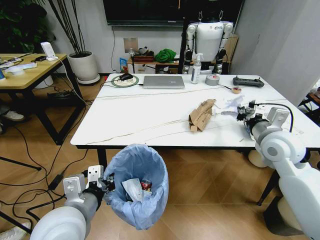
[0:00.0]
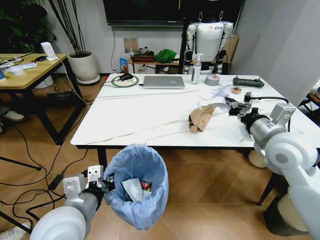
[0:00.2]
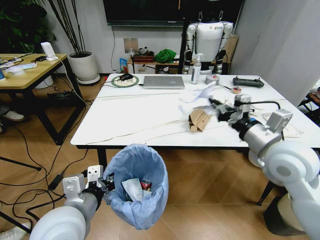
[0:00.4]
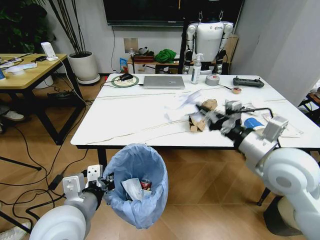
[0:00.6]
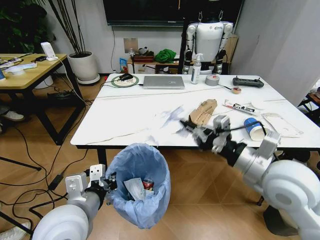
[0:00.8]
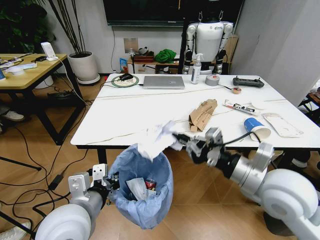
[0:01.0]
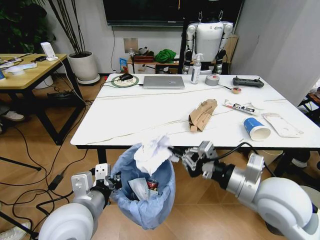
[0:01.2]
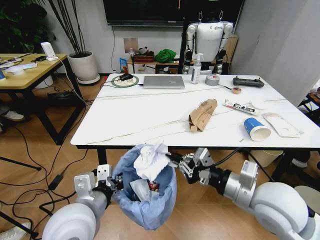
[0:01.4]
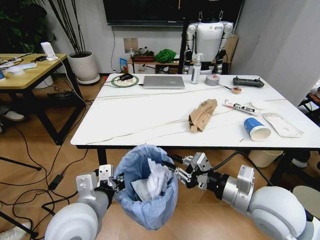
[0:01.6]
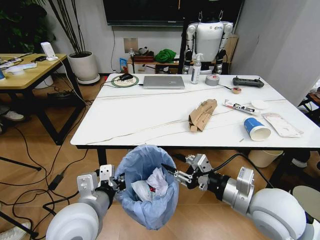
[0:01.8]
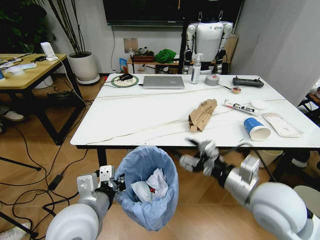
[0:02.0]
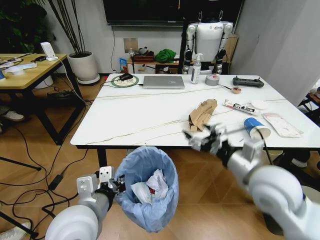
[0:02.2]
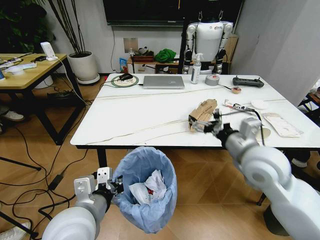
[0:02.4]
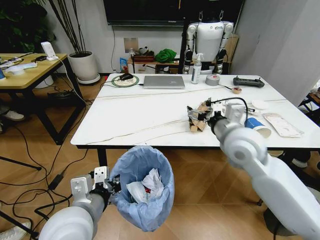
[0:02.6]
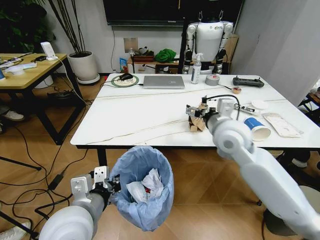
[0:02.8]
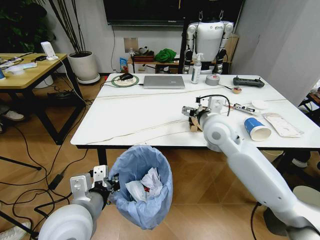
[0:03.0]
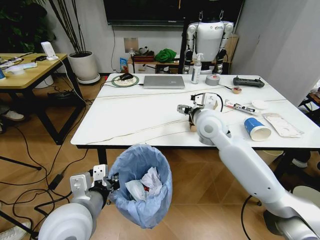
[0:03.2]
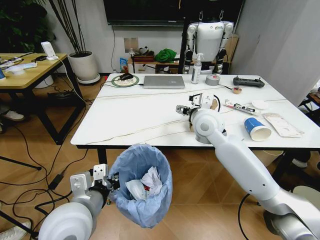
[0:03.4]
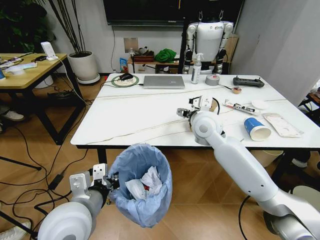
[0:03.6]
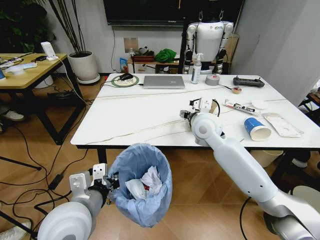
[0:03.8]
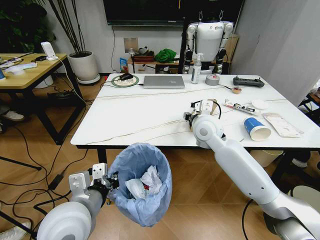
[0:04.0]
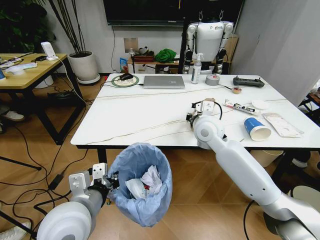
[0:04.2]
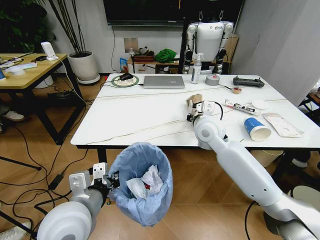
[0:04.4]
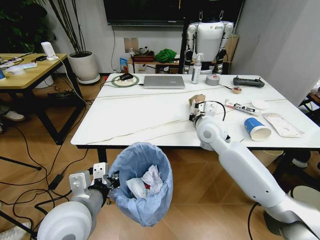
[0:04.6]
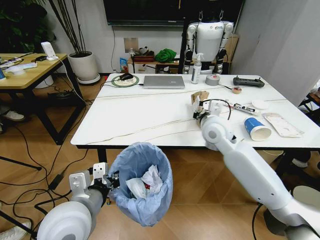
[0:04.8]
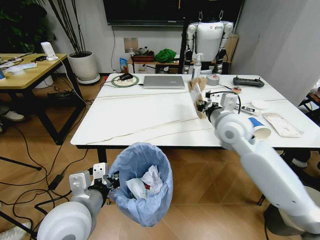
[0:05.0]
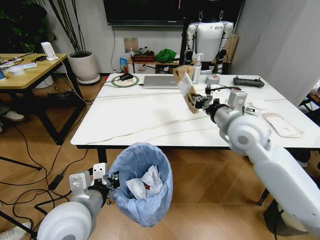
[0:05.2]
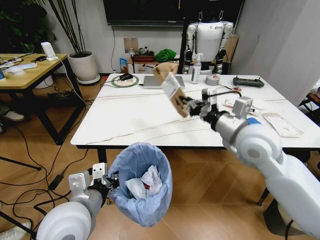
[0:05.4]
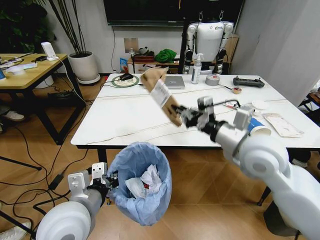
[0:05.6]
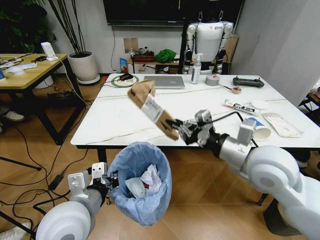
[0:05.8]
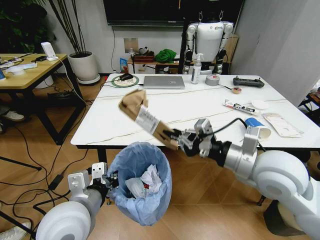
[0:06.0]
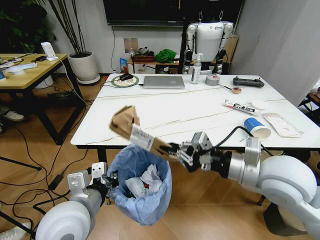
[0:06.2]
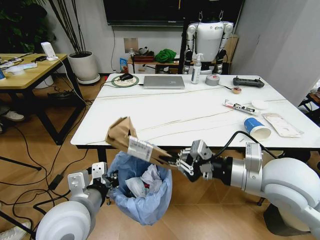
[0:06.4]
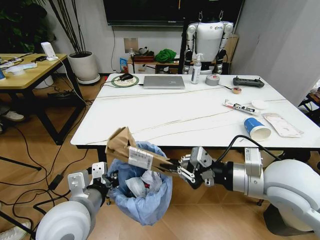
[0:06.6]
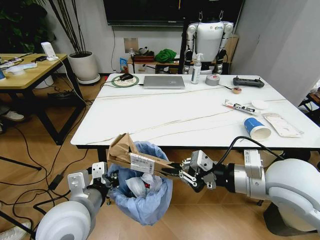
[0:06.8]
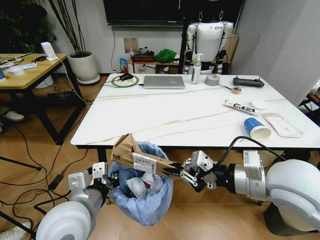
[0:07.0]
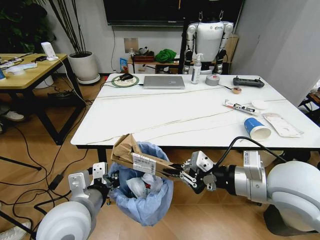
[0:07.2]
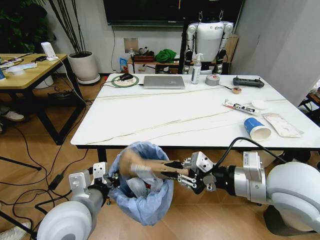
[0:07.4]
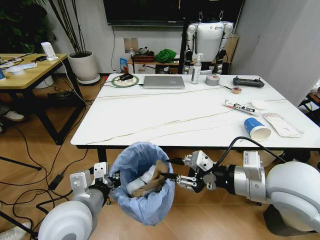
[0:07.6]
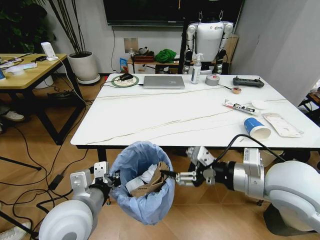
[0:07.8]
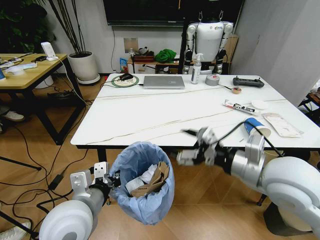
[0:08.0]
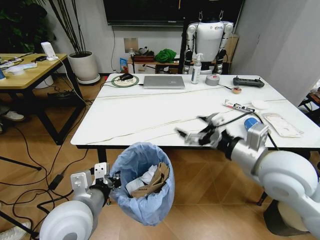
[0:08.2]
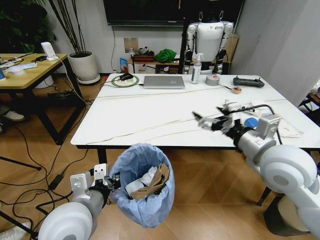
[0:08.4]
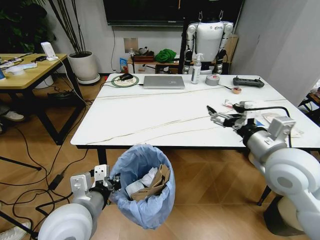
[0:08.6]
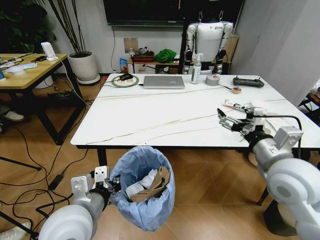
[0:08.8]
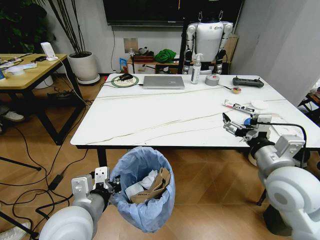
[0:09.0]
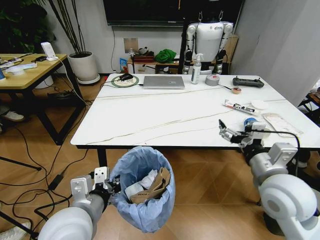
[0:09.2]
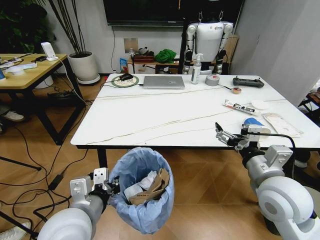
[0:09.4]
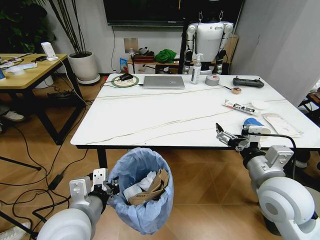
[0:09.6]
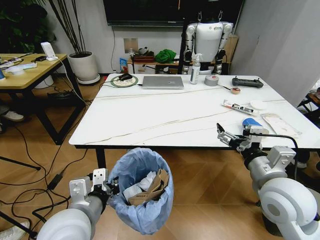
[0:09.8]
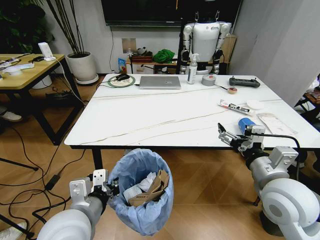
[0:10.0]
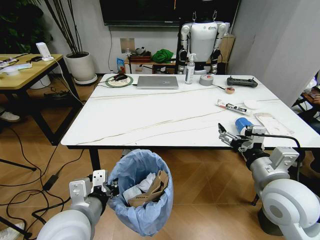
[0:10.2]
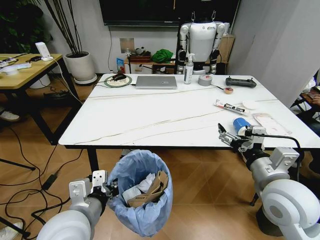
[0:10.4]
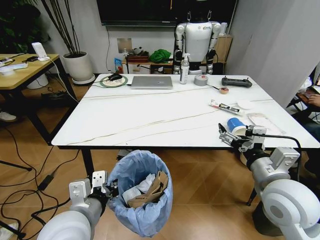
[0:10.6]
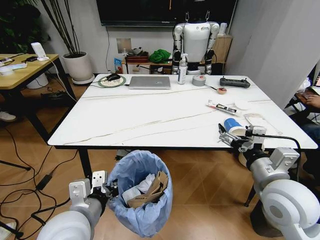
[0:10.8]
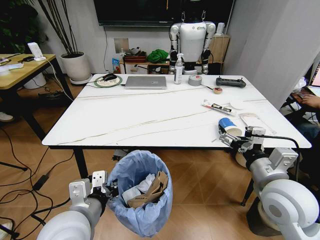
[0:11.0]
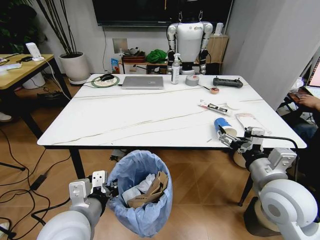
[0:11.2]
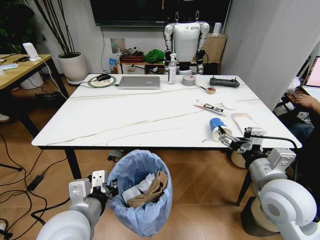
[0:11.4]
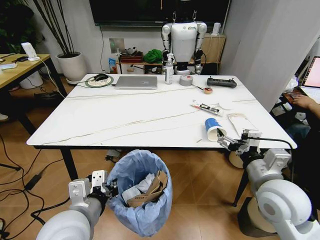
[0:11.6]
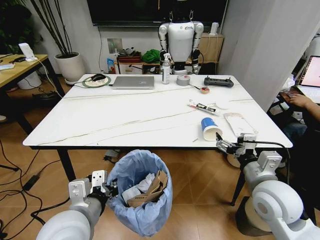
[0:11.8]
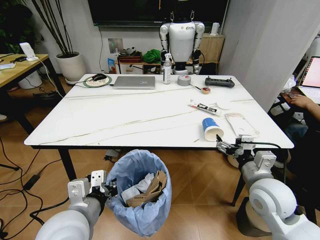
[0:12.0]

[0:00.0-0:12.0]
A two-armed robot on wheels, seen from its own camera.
Task of the whole recording: Pick up the trash bin and place the trash from the table into it.
0:00.0 to 0:01.6: The right gripper is displaced backward and to the left by some 20 cm.
0:01.6 to 0:03.0: The right gripper shifts about 20 cm forward and to the left, and opens its fingers.
0:03.0 to 0:04.4: The right gripper closes its fingers.
0:04.4 to 0:06.0: The right gripper goes some 20 cm backward and to the right.
0:06.0 to 0:07.6: The right gripper opens up.
0:07.6 to 0:09.0: The right gripper shifts by some 5 cm, and opens up.
0:10.4 to 0:12.0: The right gripper goes roughly 5 cm downward.

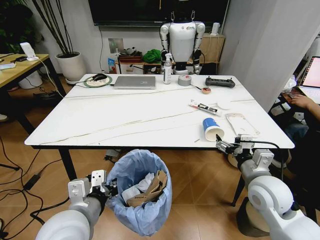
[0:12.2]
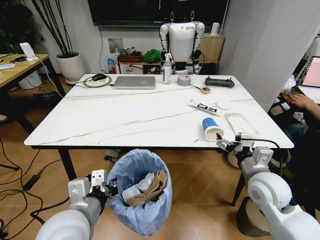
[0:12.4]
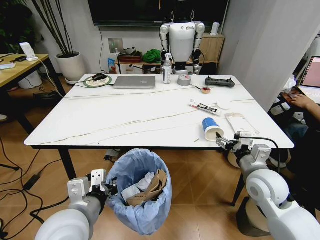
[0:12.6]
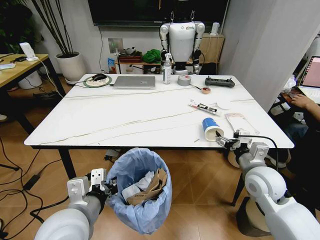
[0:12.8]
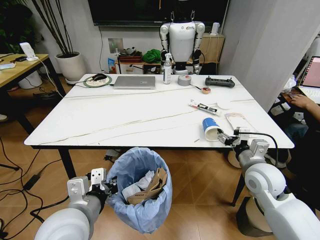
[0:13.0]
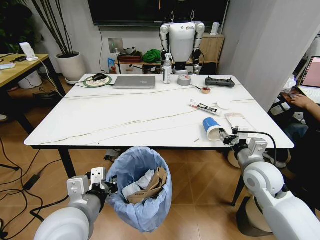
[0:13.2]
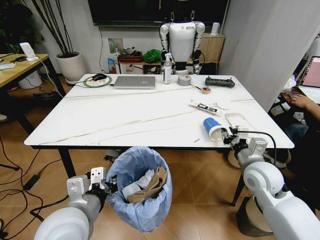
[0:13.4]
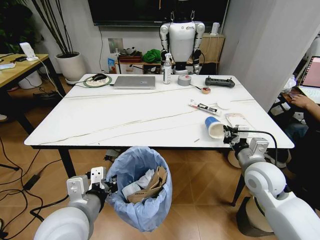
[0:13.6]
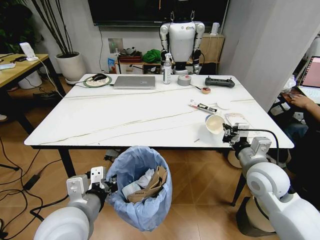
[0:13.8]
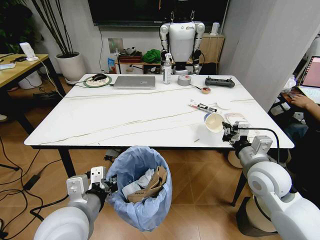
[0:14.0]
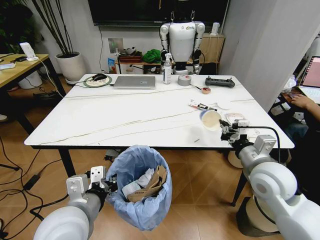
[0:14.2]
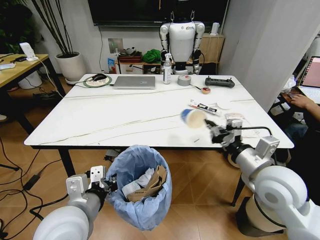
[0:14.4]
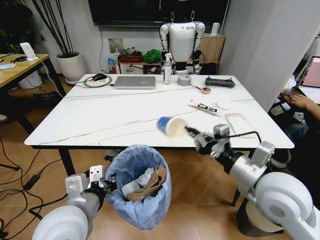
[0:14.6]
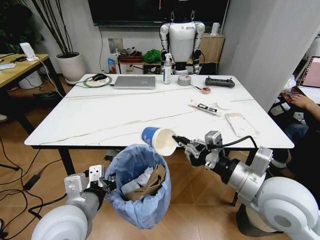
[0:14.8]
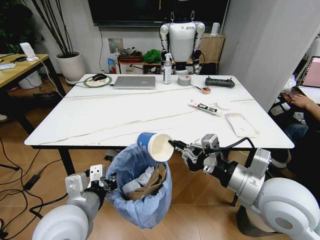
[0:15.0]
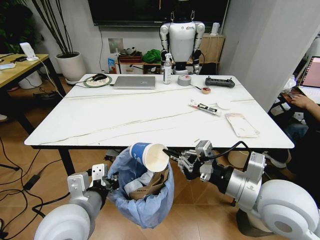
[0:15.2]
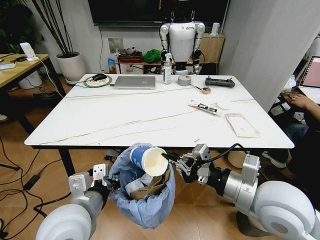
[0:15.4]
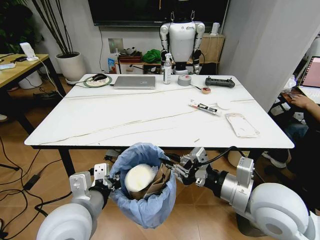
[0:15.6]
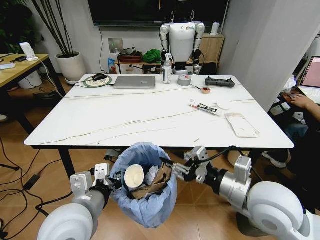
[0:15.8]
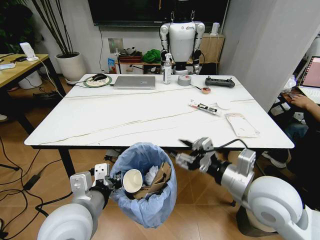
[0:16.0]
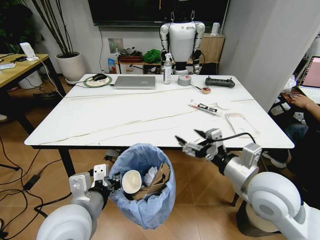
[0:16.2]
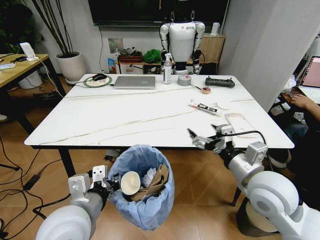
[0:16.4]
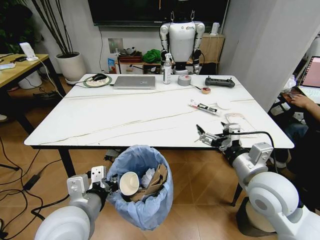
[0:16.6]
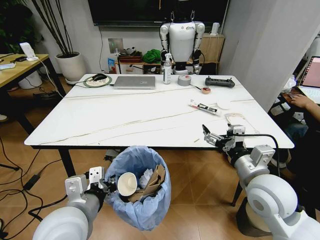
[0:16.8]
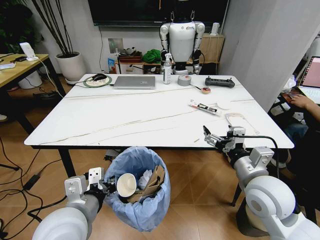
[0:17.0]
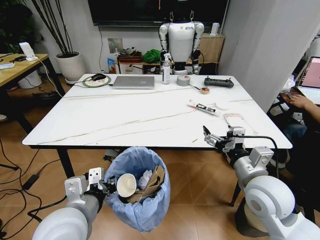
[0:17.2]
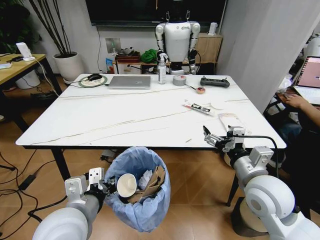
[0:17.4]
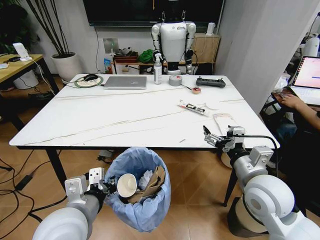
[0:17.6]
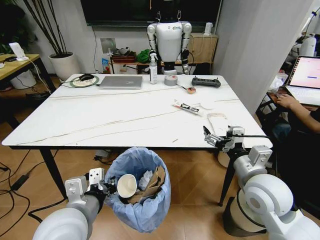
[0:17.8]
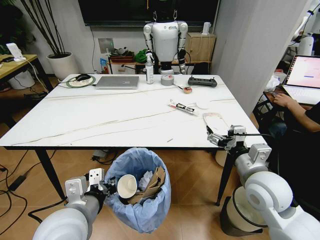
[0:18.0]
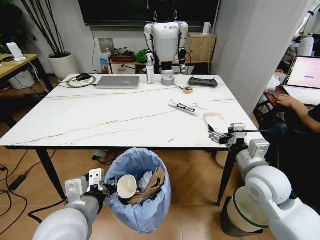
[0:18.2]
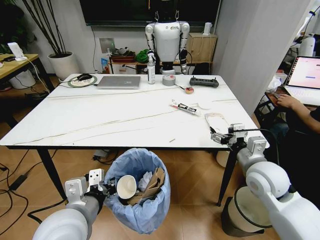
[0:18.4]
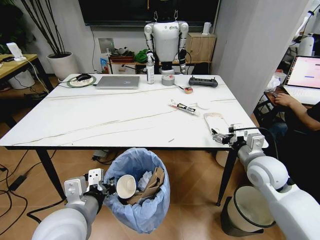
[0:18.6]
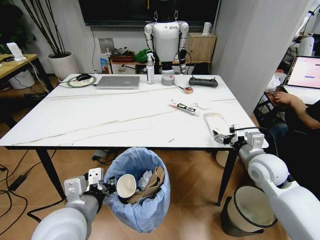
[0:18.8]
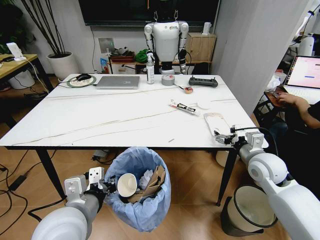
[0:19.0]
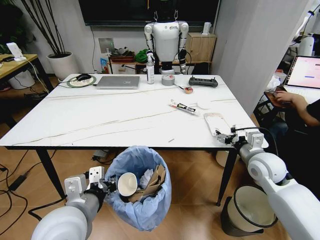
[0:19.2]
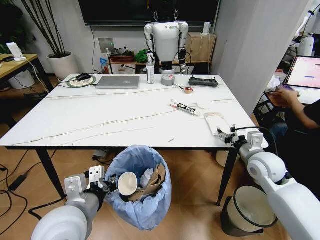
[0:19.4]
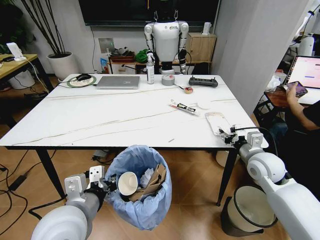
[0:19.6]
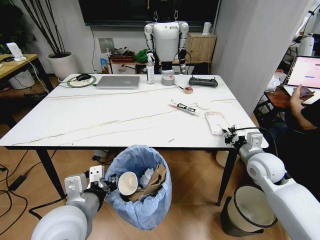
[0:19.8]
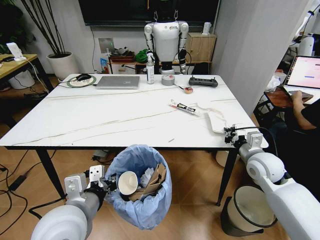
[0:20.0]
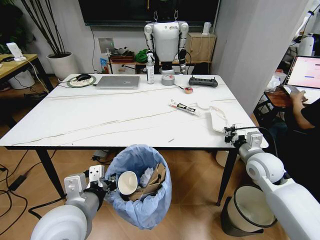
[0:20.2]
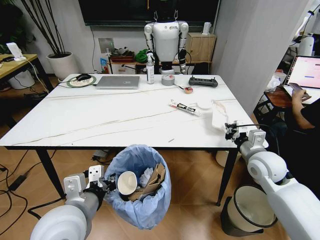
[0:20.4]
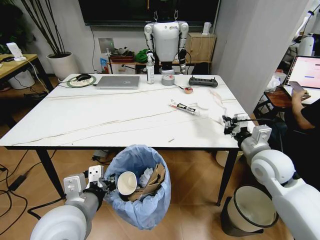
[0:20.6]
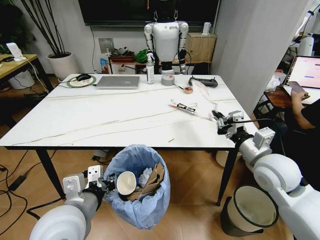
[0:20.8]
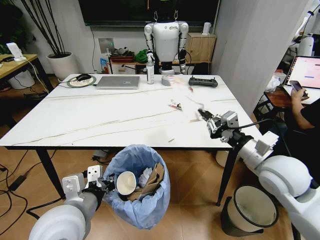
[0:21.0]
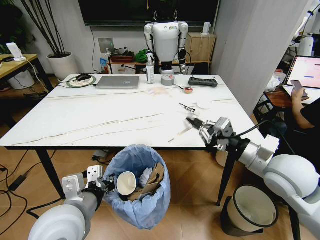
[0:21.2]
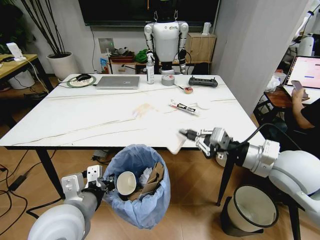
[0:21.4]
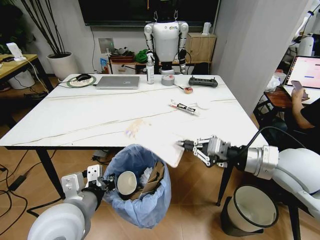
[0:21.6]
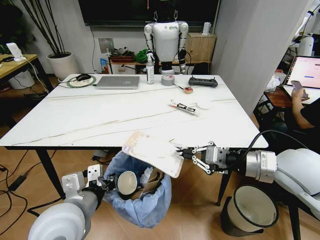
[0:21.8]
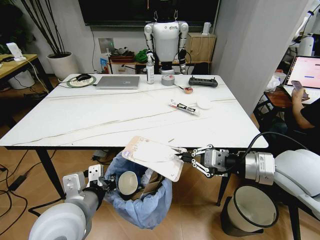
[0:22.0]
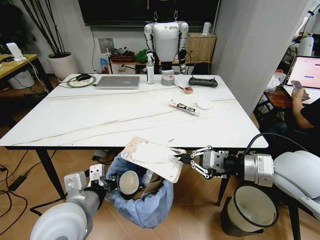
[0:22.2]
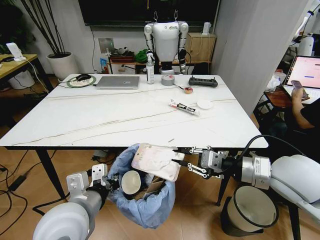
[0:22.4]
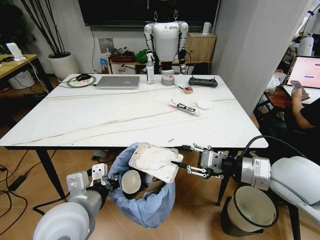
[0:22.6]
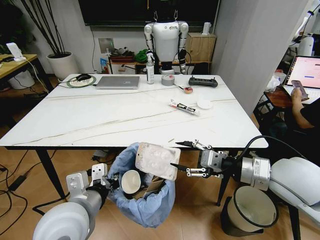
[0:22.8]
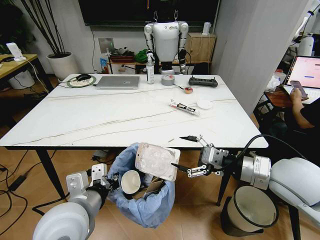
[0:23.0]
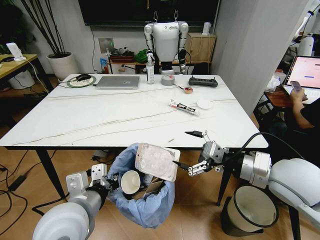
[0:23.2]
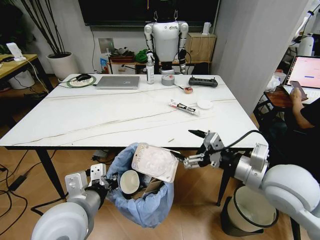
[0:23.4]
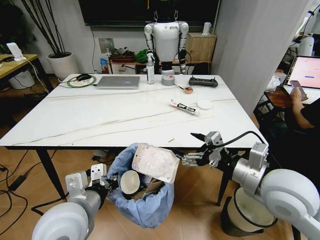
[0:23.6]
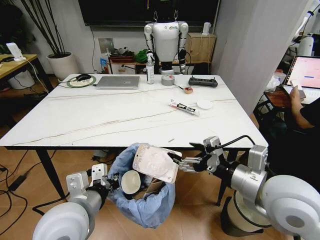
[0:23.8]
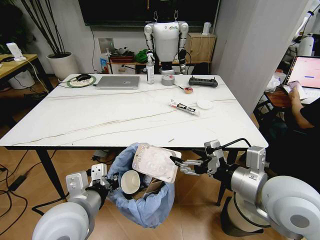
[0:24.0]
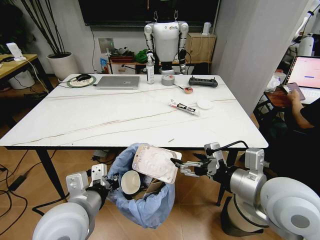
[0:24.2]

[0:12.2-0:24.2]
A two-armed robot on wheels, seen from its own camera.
Task of the whole recording: Pick up the trash bin and place the trash from the table into it.
0:12.2 to 0:13.8: The right gripper closes its fingers.
0:13.8 to 0:15.2: The right gripper goes roughly 15 cm backward, upward and to the left.
0:15.2 to 0:16.6: The right gripper changes place by about 5 cm, and opens.
0:18.2 to 0:19.8: The right gripper travels forward and to the right by roughly 10 cm, and closes.
0:19.8 to 0:21.2: The right gripper shifts about 15 cm upward and backward.
0:21.2 to 0:22.6: The right gripper opens.
0:22.6 to 0:24.2: The right gripper is displaced backward by roughly 5 cm, and opens.
